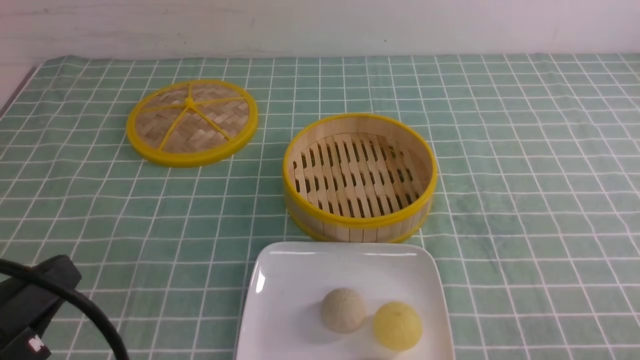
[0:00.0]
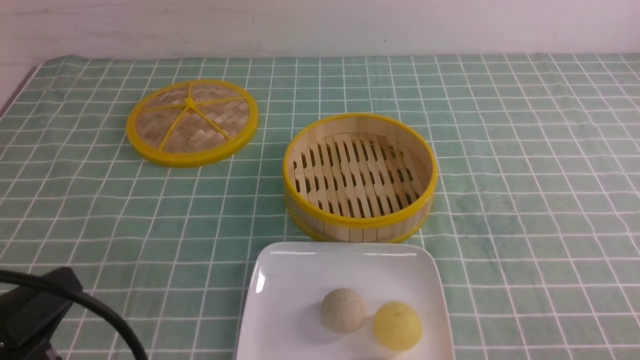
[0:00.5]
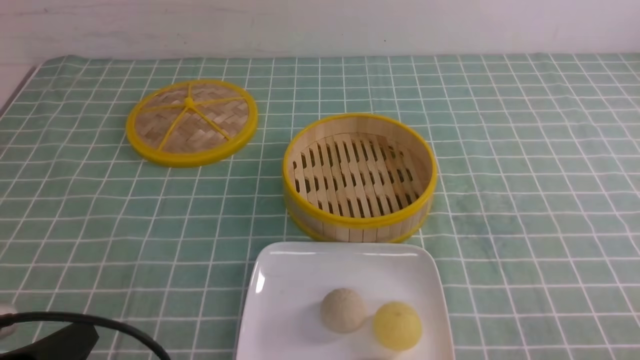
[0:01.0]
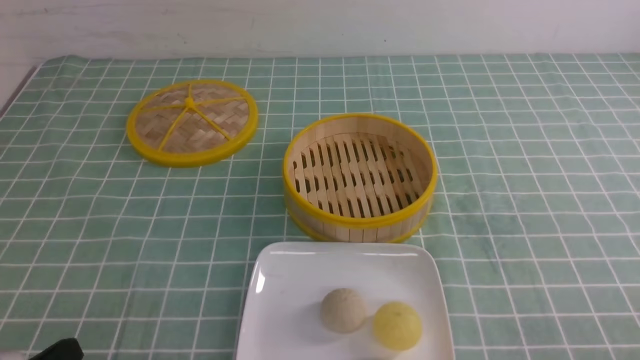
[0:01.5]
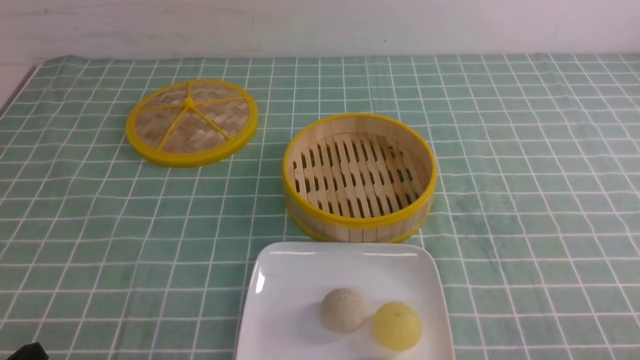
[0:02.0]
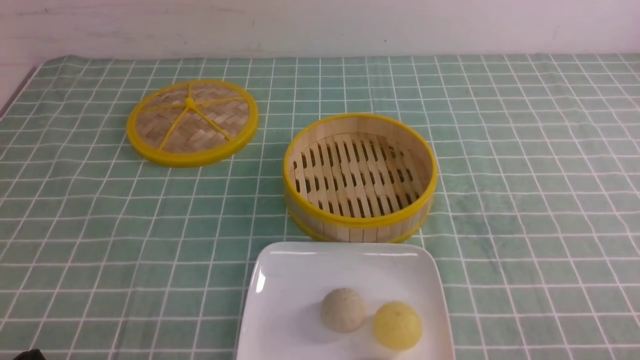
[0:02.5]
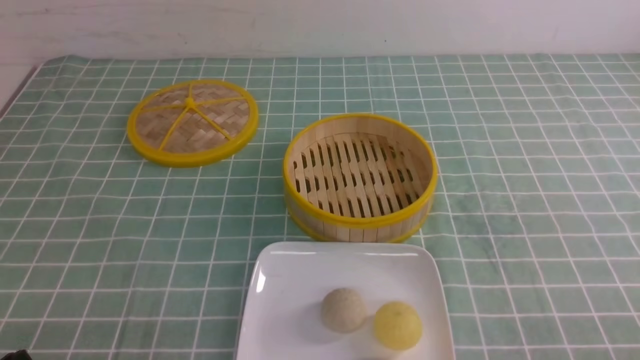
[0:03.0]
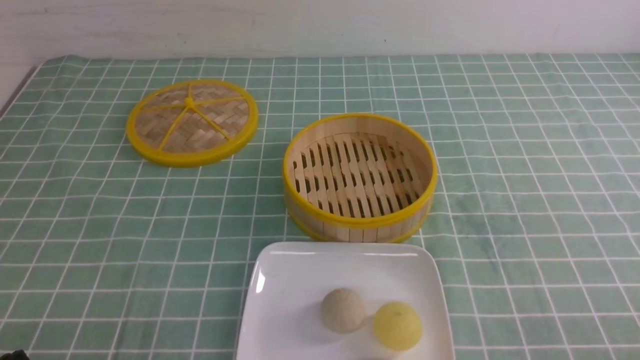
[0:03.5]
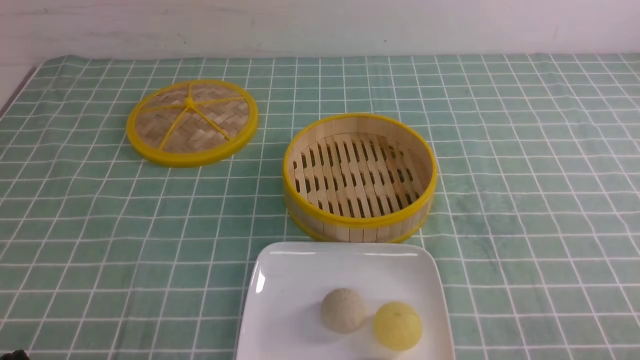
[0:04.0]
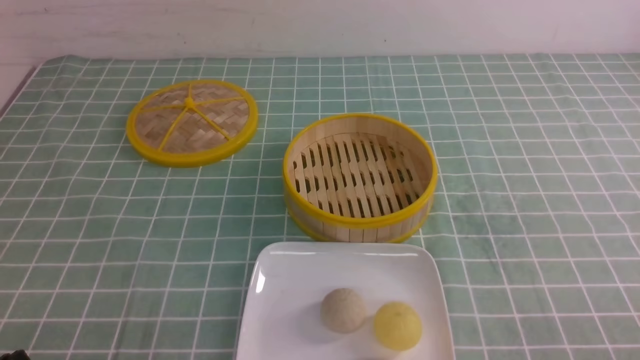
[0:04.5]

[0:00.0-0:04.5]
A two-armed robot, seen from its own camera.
0:00.0 to 0:02.0: The left gripper goes about 10 cm downward.
